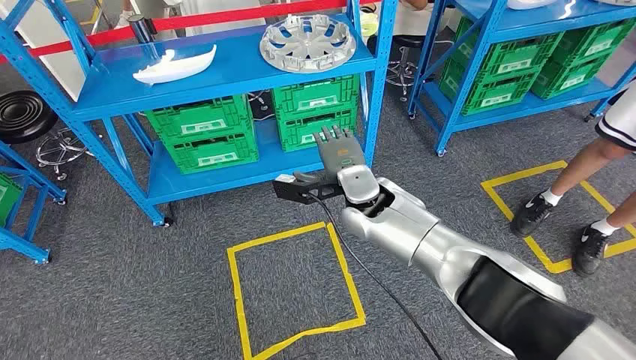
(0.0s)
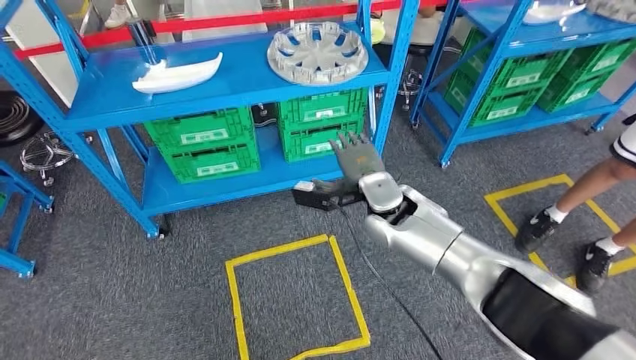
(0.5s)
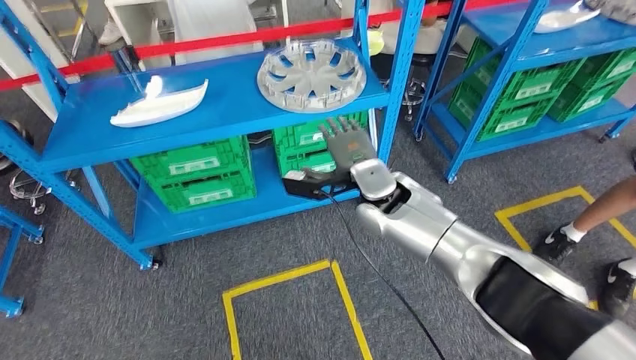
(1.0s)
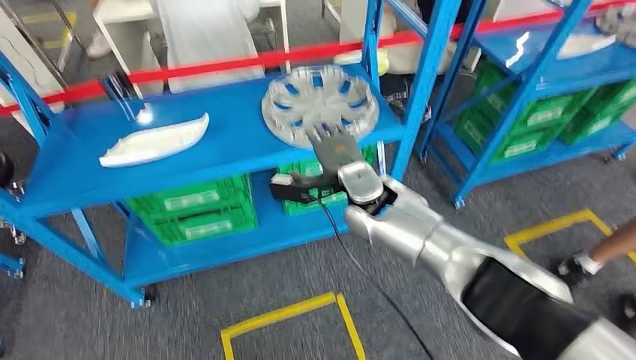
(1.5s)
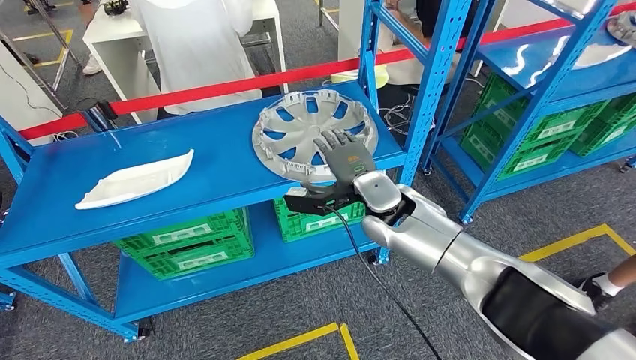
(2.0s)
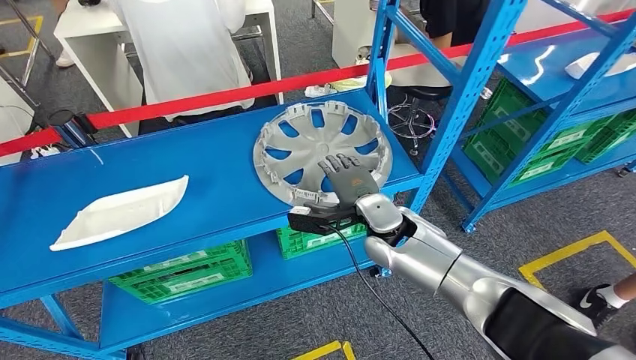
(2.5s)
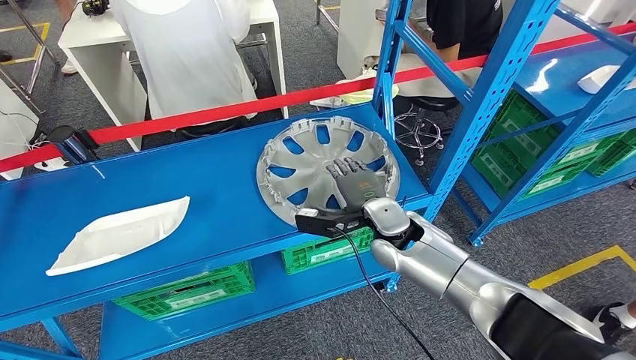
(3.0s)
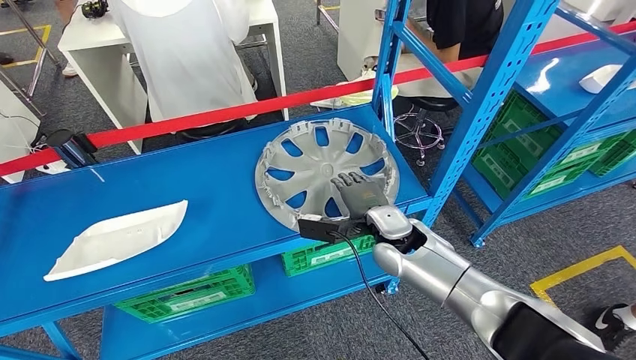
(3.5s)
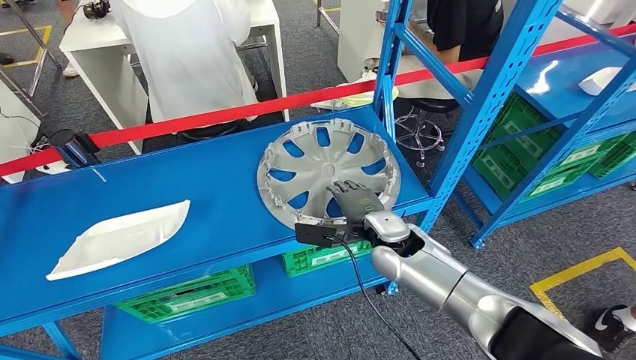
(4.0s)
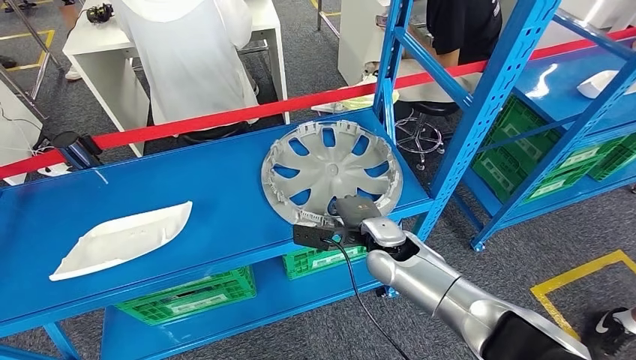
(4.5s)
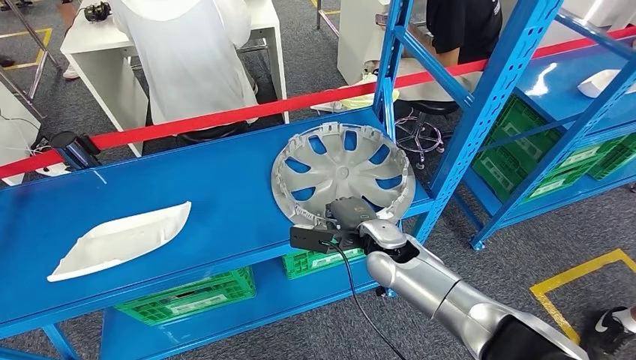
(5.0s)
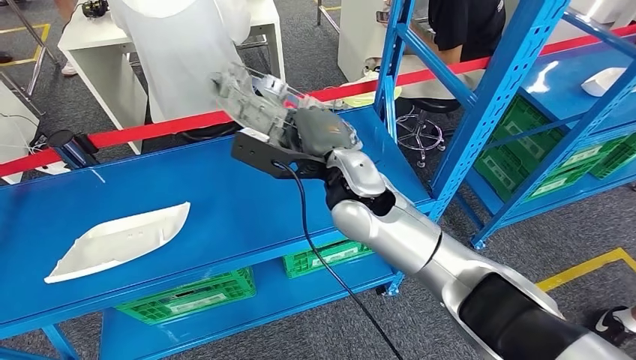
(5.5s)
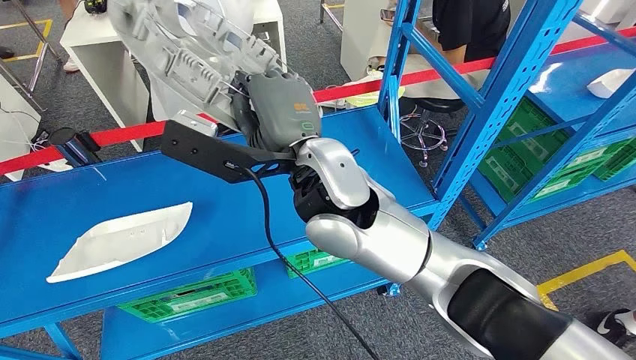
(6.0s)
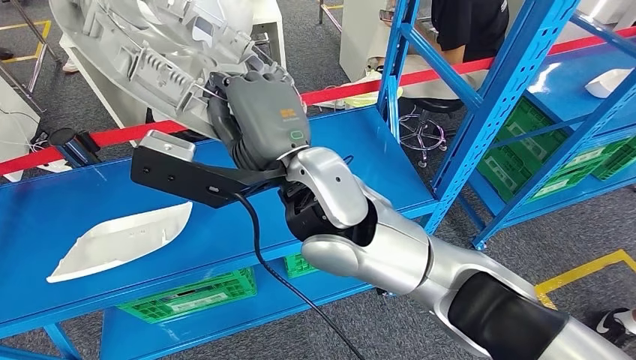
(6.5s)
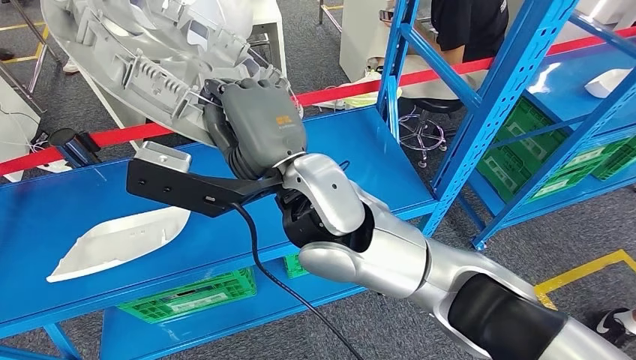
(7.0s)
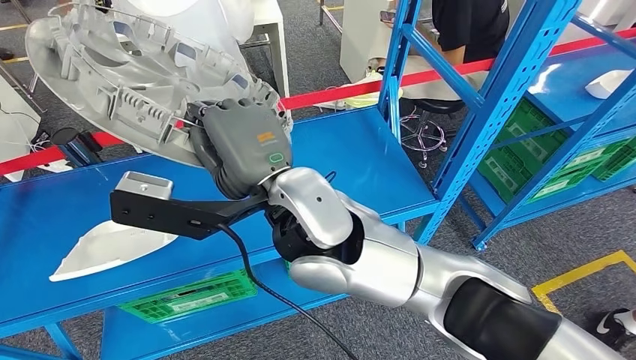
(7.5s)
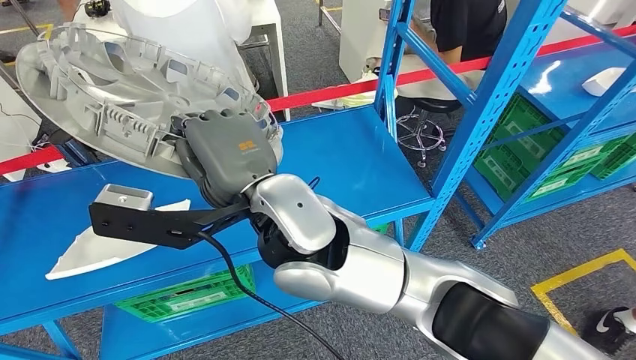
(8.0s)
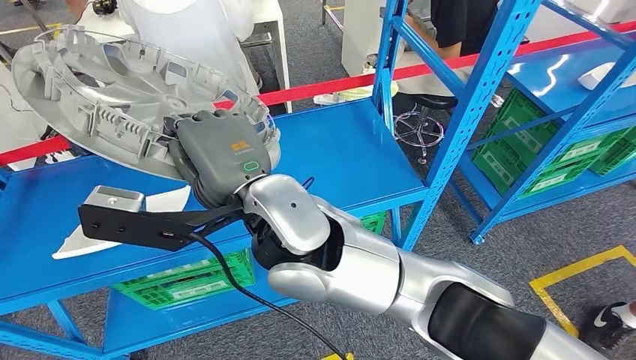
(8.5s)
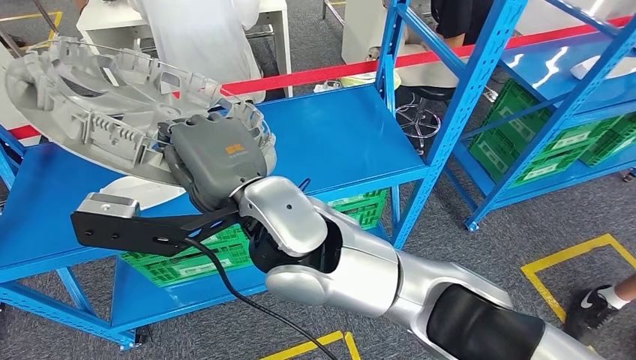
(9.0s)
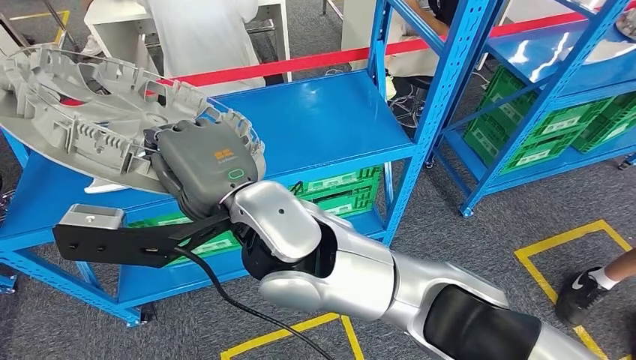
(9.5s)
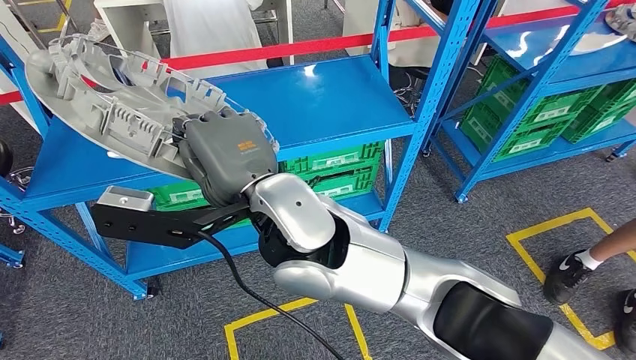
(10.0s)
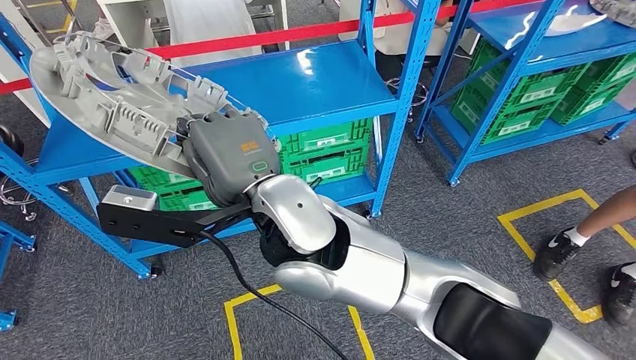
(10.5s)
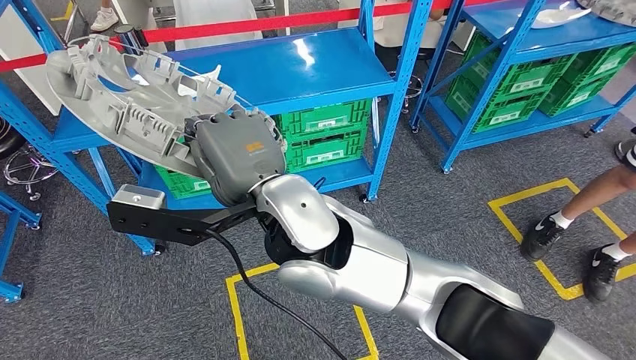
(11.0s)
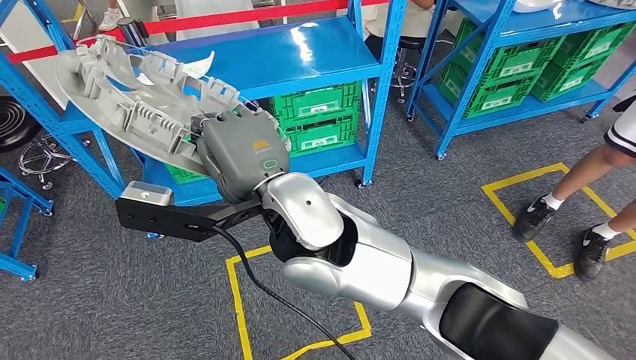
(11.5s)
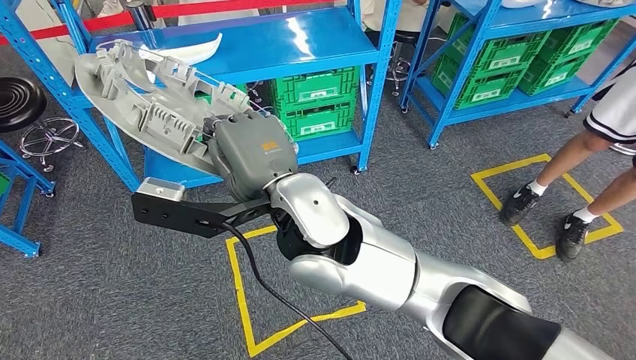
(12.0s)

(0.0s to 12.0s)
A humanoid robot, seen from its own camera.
Step, 0.0s - 6.0s: Pick up the small component from the shelf.

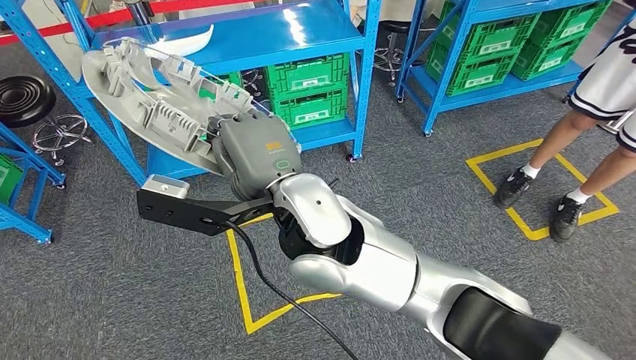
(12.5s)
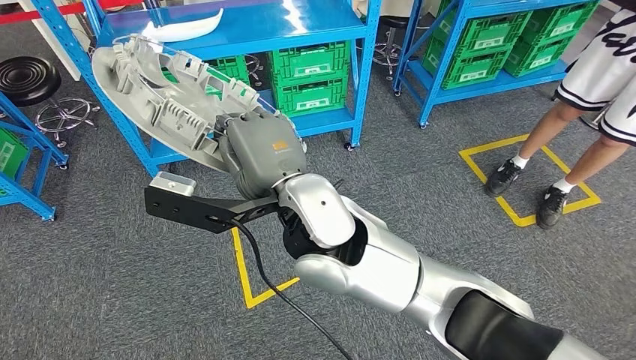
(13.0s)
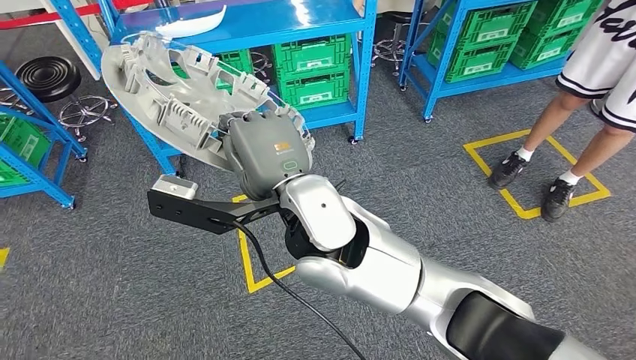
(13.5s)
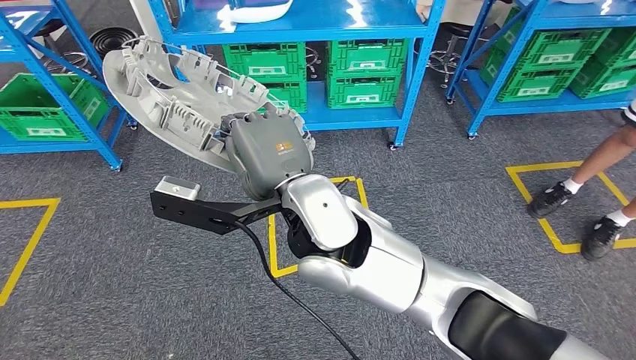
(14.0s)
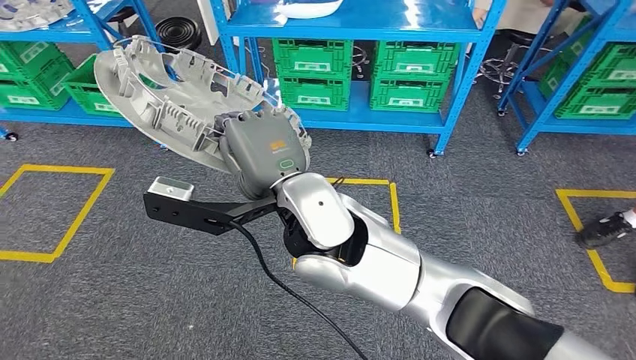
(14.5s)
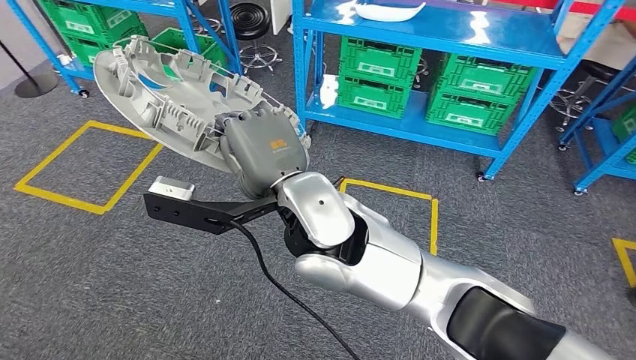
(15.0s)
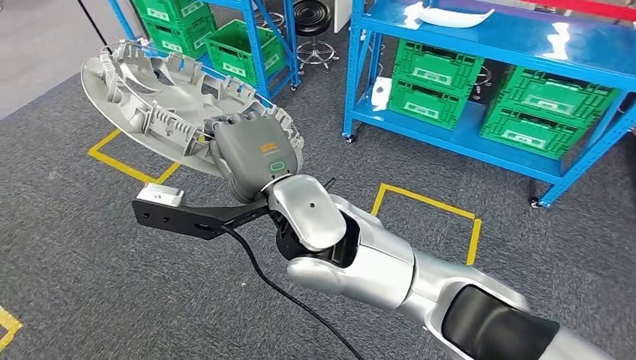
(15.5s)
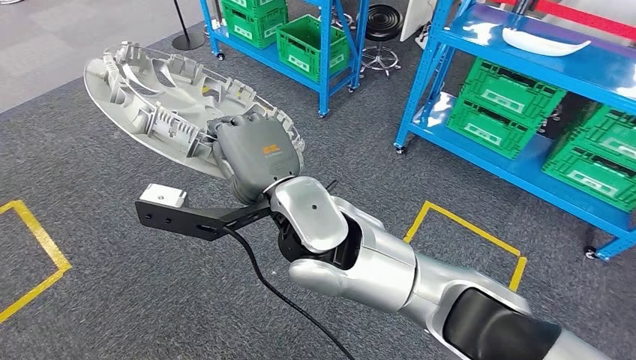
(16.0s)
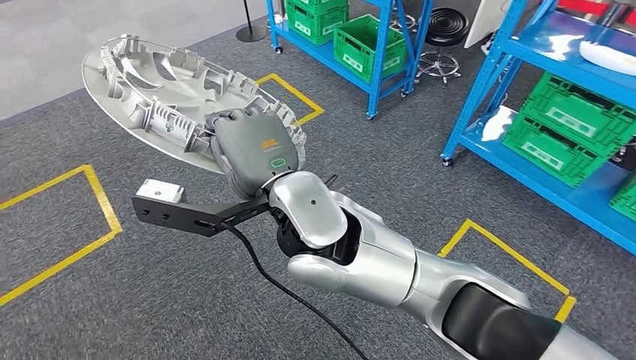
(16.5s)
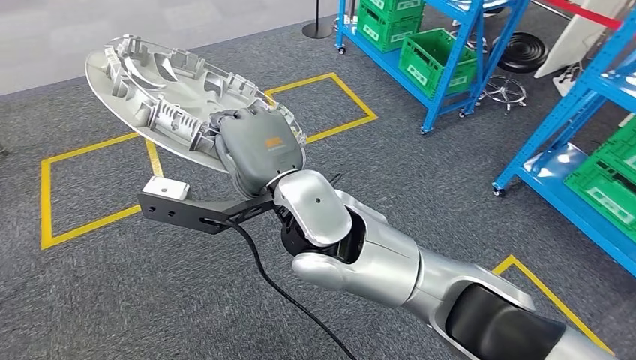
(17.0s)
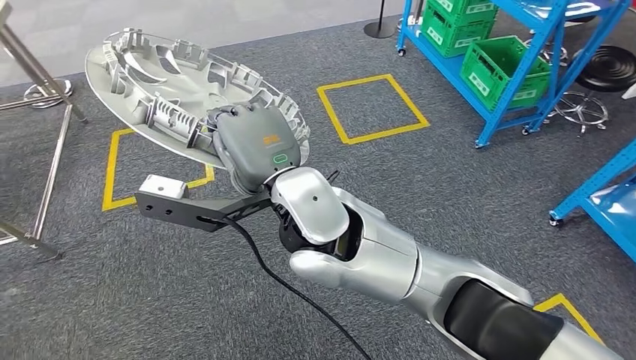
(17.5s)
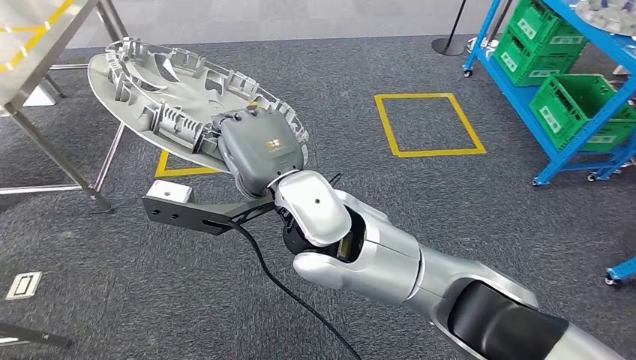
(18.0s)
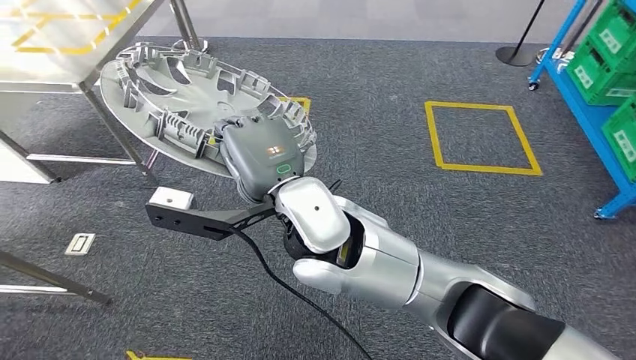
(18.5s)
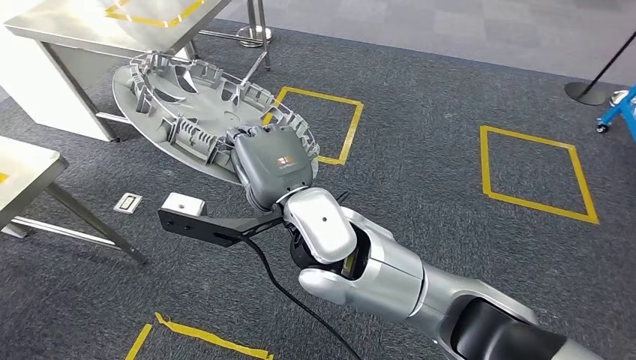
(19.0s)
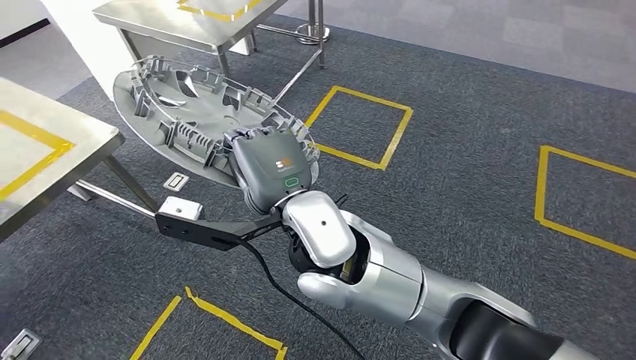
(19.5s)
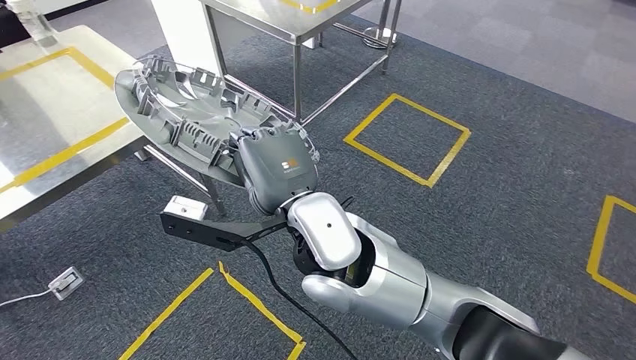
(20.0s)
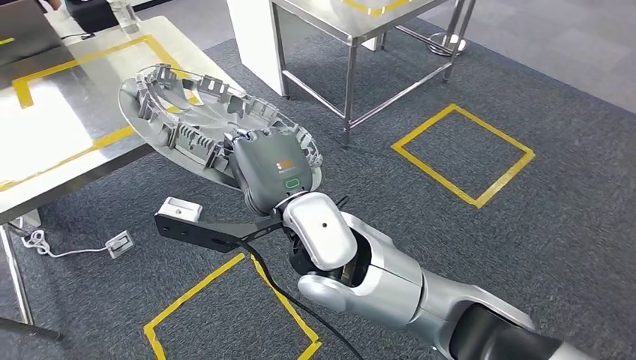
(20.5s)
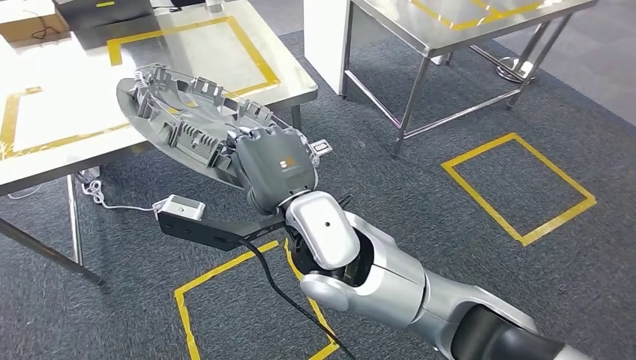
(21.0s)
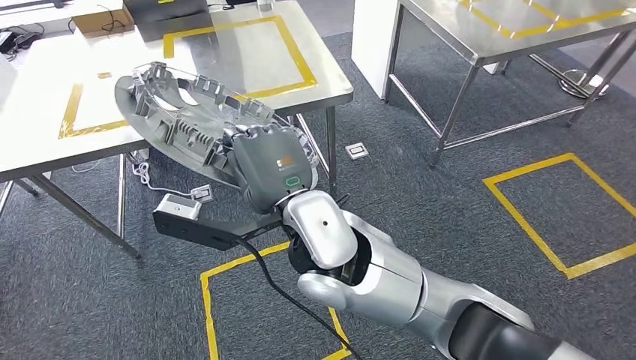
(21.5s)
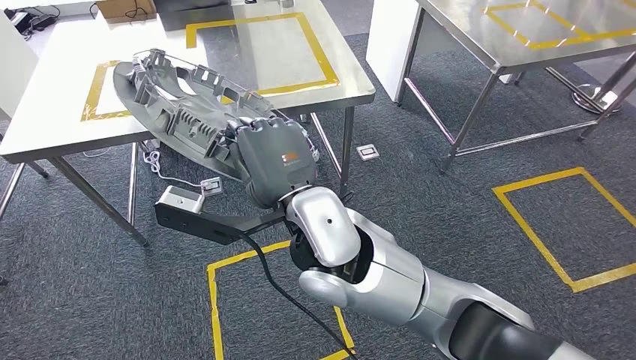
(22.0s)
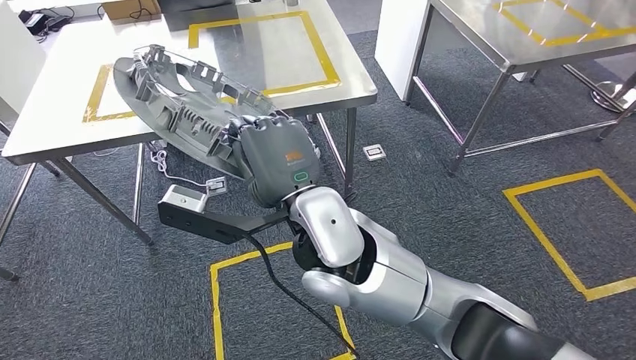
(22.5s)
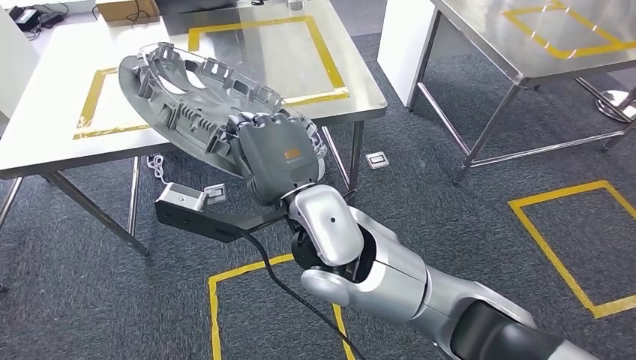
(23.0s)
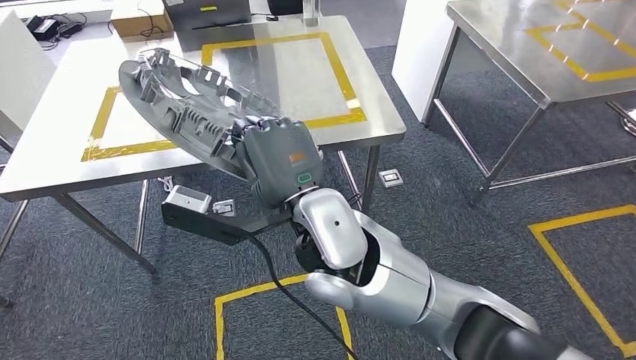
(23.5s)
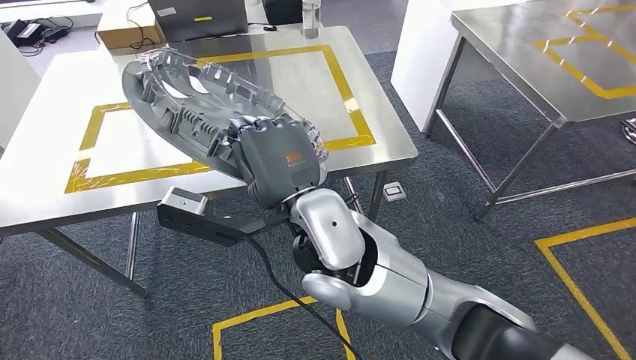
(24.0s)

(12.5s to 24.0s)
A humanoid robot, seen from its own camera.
Step, 12.5s - 21.5s: Move the small component to the workbench.
